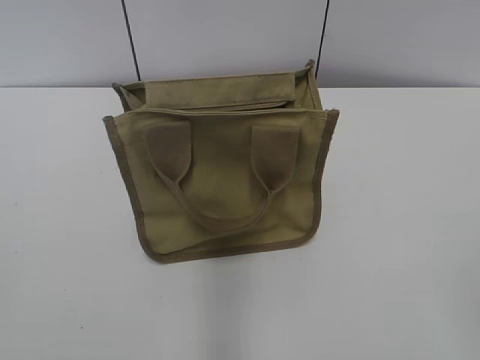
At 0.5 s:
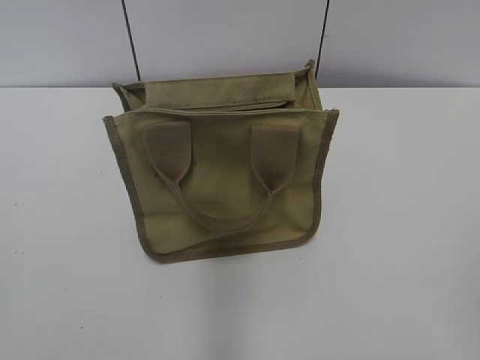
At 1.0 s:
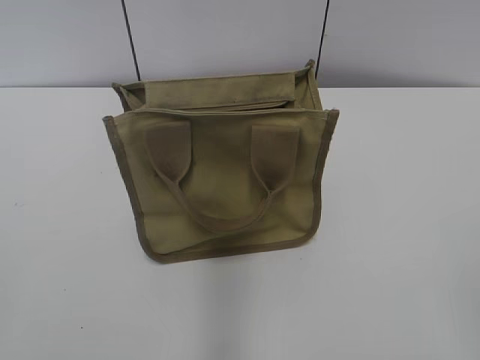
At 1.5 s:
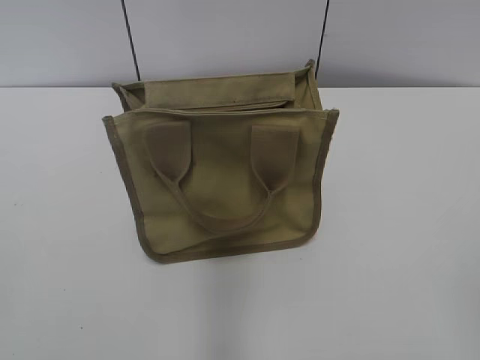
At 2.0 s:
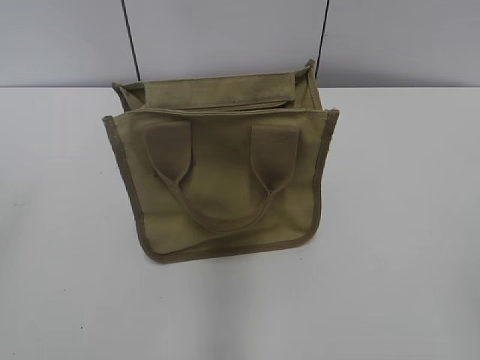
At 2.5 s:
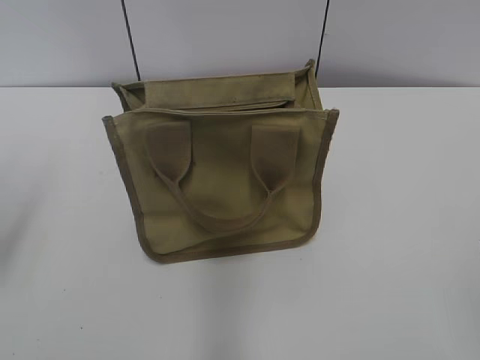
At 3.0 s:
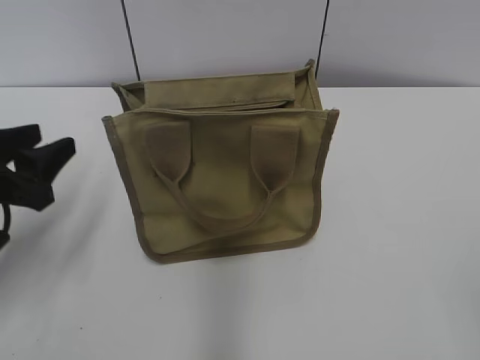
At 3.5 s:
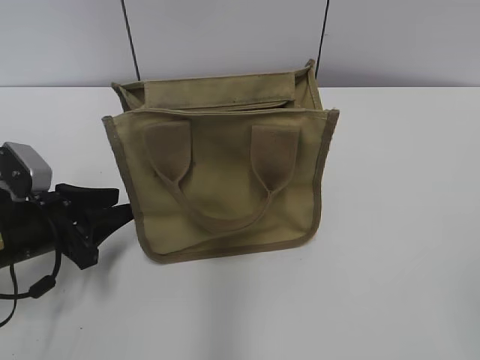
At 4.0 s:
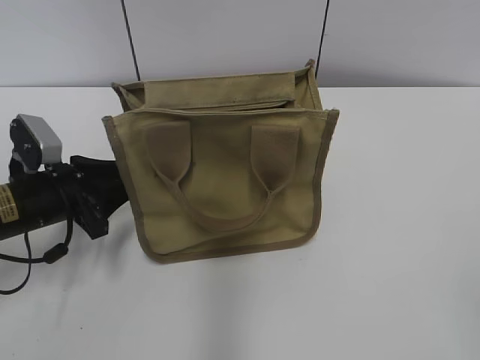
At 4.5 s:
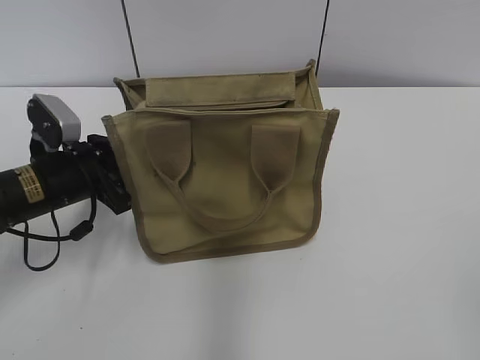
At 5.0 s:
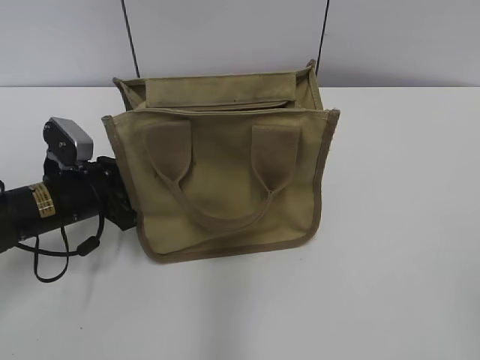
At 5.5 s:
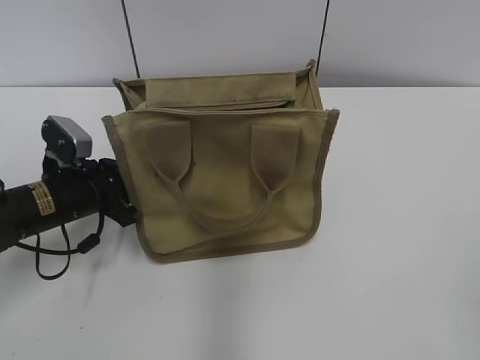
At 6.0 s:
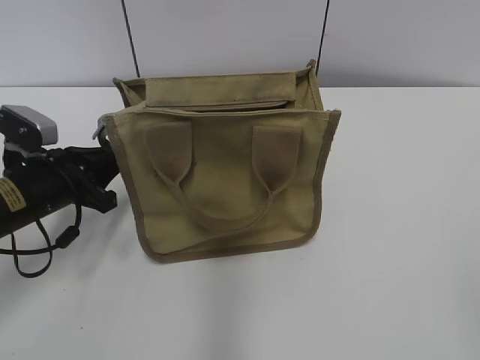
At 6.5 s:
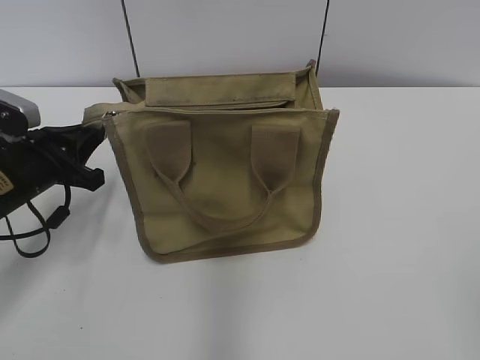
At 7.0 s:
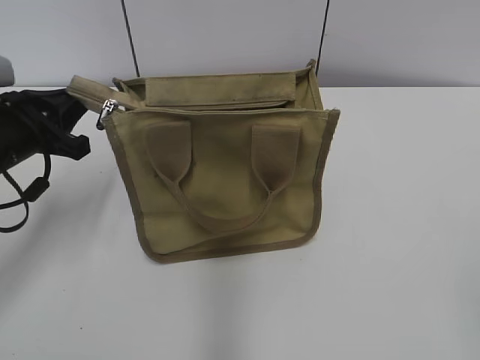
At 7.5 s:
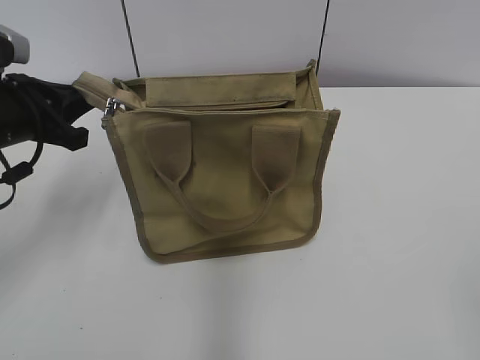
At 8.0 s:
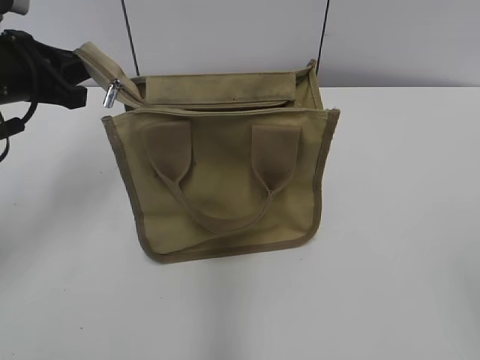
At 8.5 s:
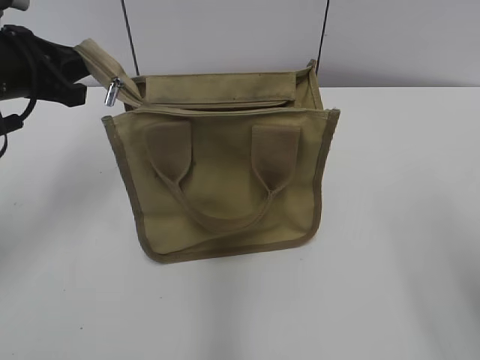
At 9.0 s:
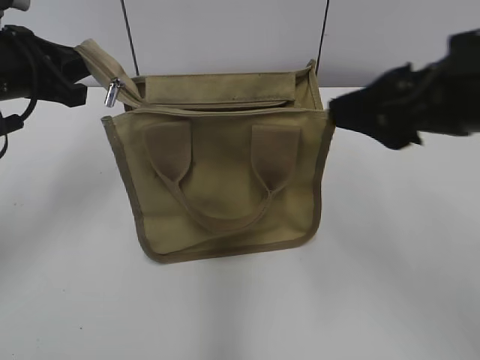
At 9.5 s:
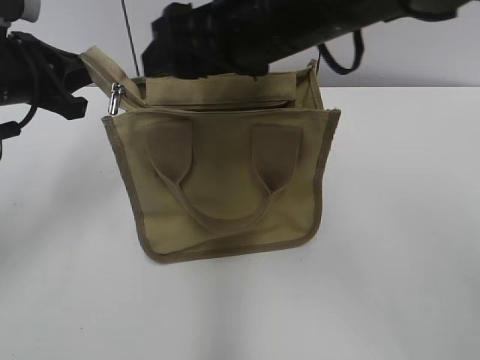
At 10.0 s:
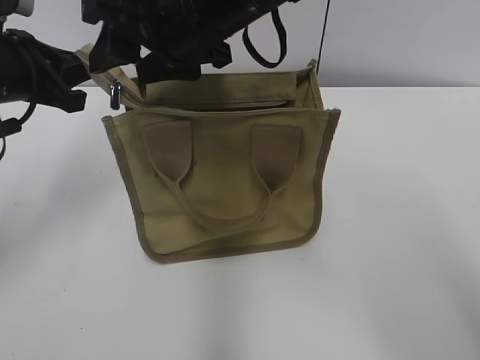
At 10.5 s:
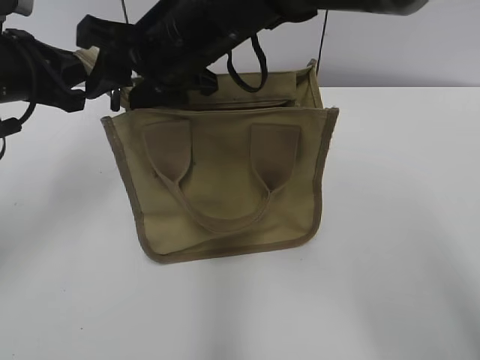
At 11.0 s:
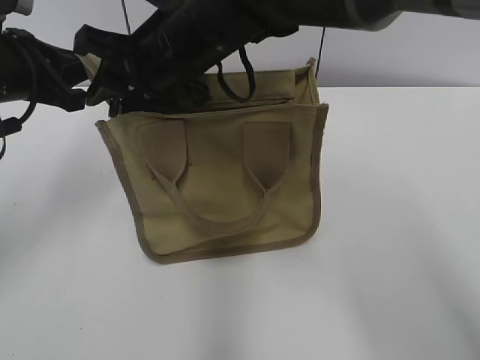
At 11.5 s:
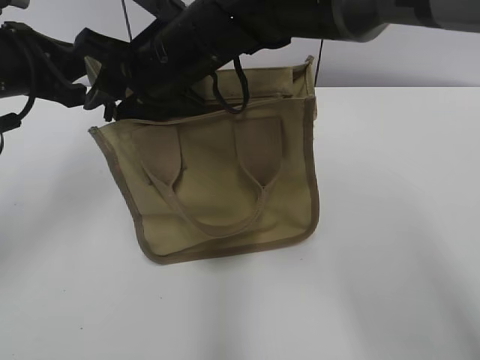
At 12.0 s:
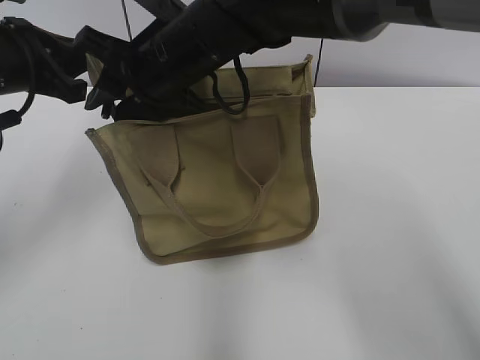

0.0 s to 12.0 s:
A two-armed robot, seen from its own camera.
2.0 to 4.0 s: The left gripper is displaced forward and downward by approximately 30 cm, and closes.
4.0 to 6.0 s: The left gripper closes up.
6.0 to 8.0 s: The left gripper moves upward, approximately 15 cm.
8.0 to 10.0 s: The right gripper travels forward and to the left by about 40 cm.
10.0 to 12.0 s: The right gripper travels downward by some 5 cm.

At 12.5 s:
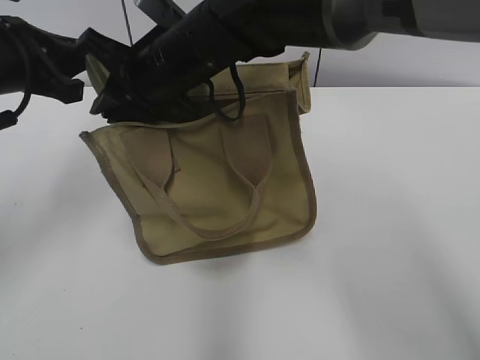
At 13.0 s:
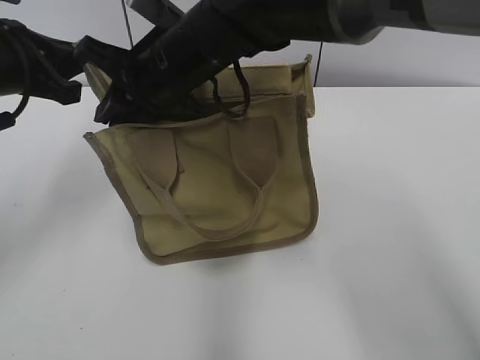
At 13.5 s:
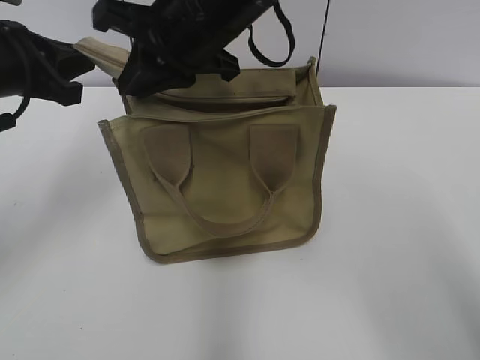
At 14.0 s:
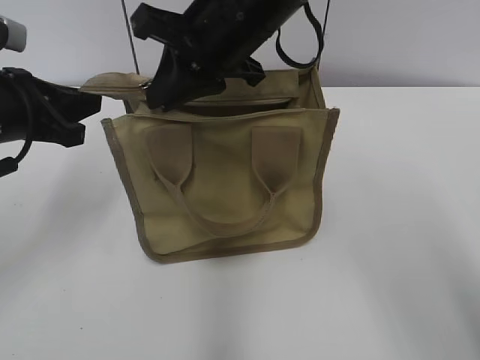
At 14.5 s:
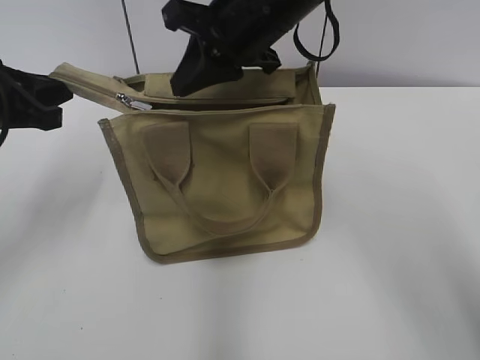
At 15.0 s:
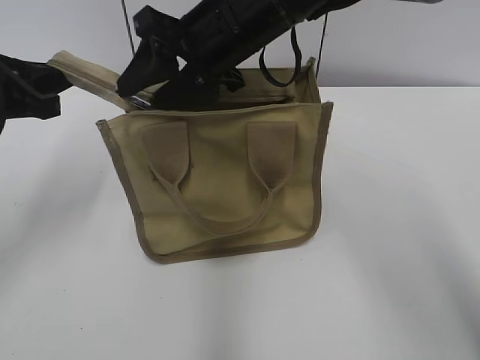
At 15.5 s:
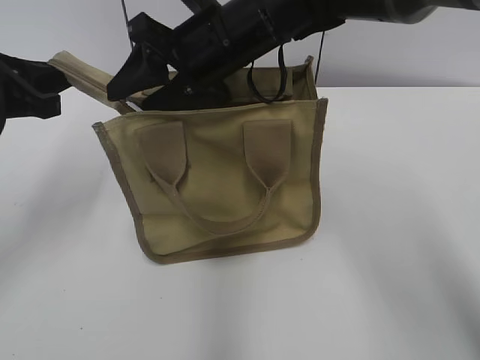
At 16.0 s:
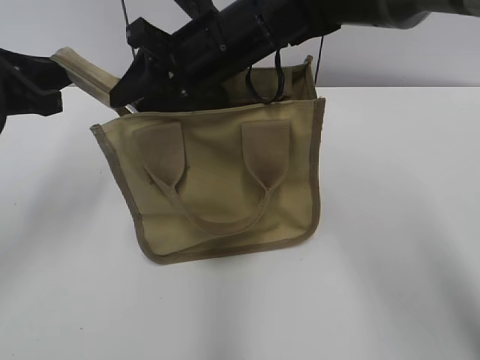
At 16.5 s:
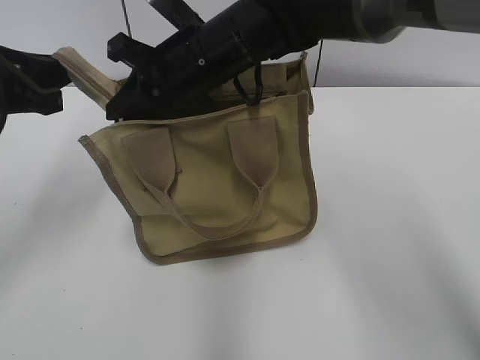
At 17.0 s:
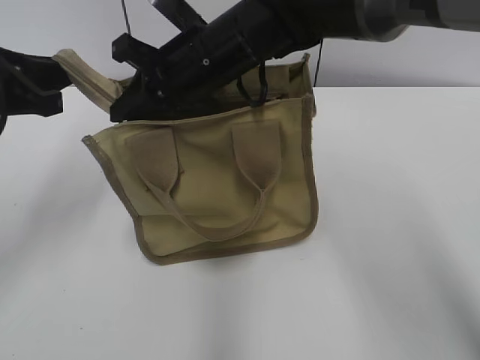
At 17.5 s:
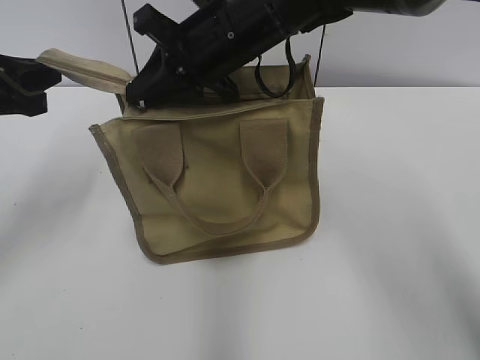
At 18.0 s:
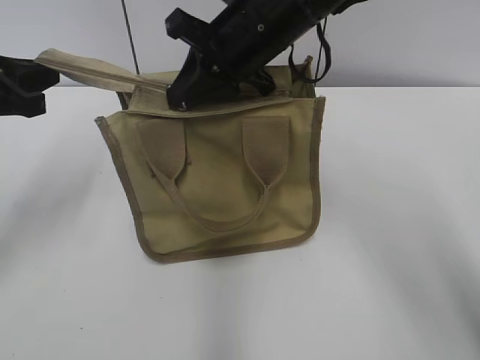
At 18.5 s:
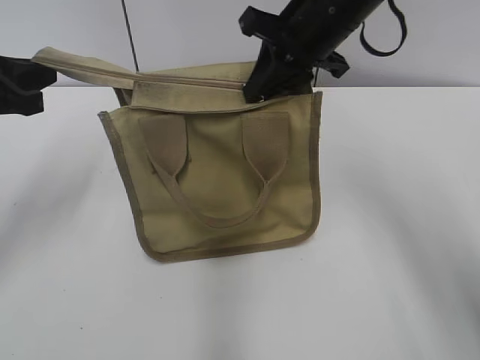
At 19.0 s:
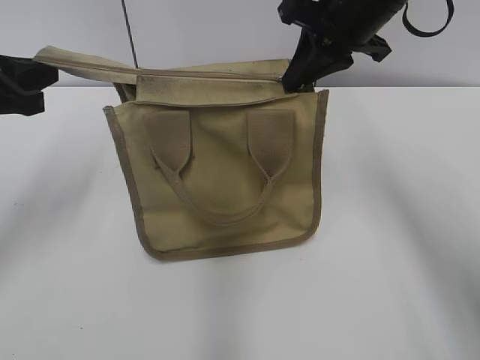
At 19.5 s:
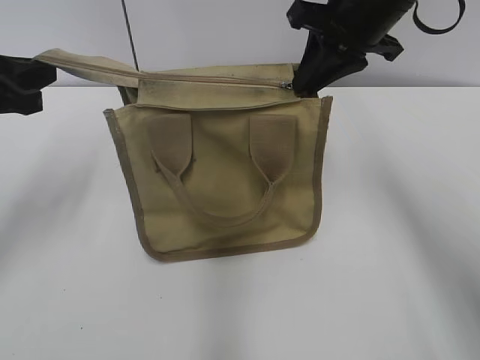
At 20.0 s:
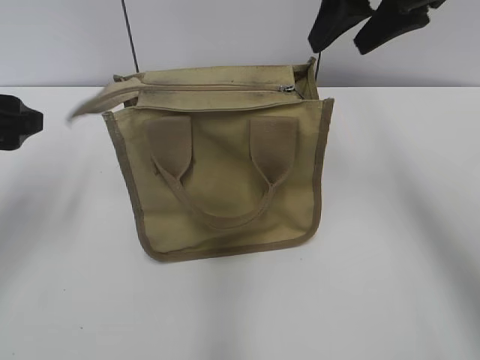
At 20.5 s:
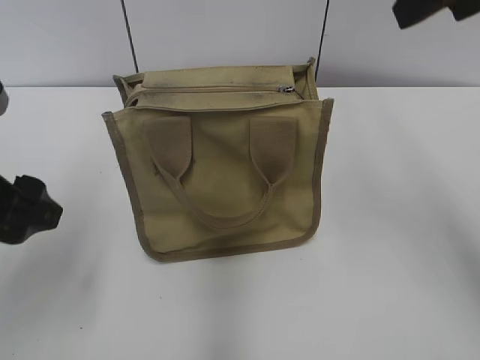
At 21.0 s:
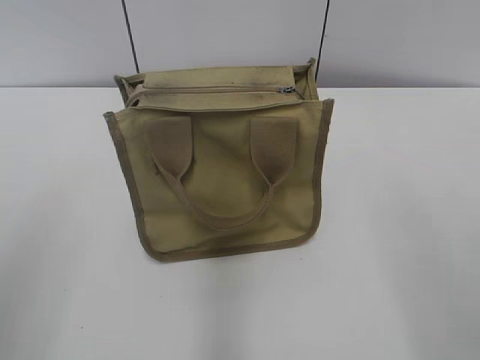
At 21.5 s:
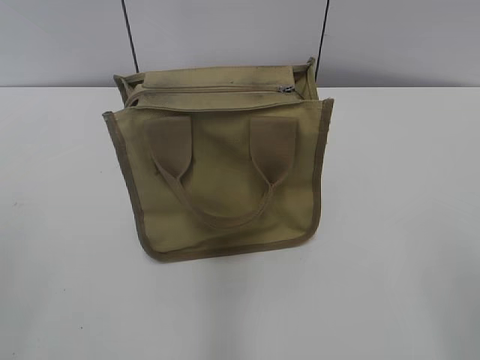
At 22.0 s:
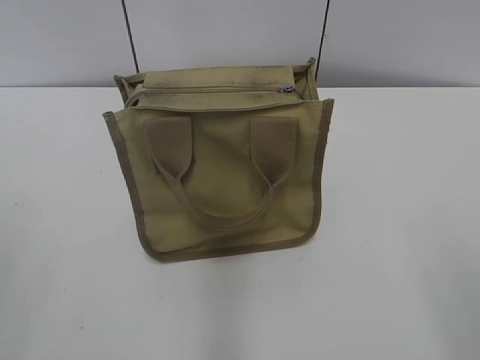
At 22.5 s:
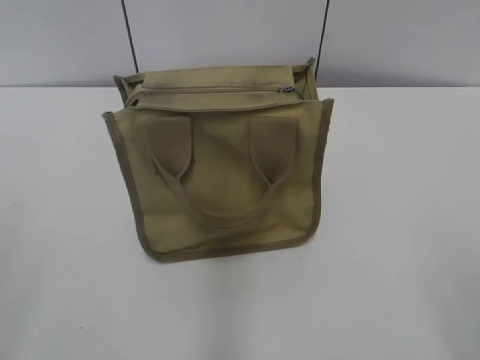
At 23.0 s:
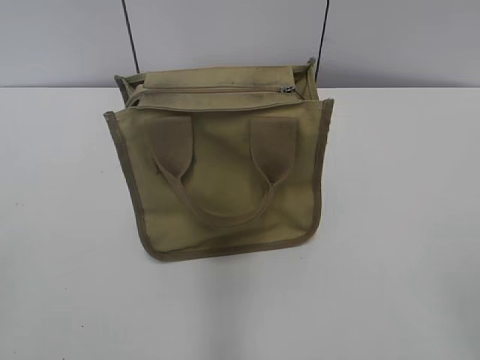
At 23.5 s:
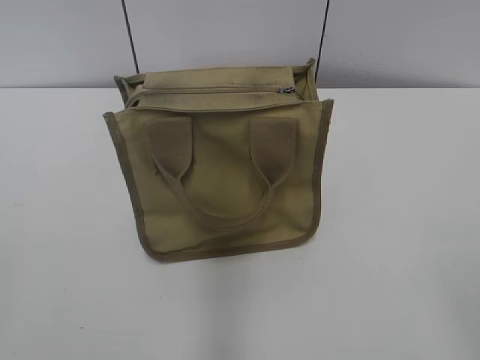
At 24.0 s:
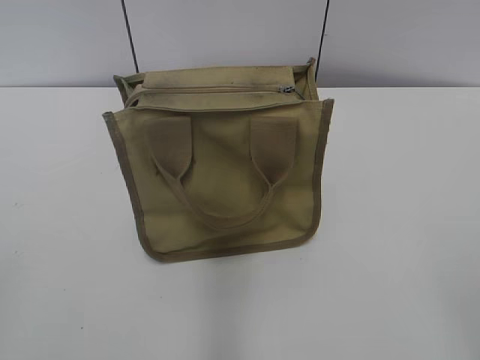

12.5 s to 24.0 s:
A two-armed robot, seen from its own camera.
Step, 12.5 to 19.5 s: Zip up the bag with your right hand.
12.5 to 14.5 s: The right gripper shifts roughly 10 cm to the right and upward.
14.5 to 16.5 s: The right gripper heads downward and to the left, covering some 10 cm, and opens, then closes again.
16.5 to 18.5 s: The right gripper shifts about 10 cm to the right.
18.5 to 20.0 s: The right gripper travels upward and to the right by about 10 cm, and opens. The left gripper opens.
20.0 to 22.0 s: The two grippers go roughly 30 cm backward.

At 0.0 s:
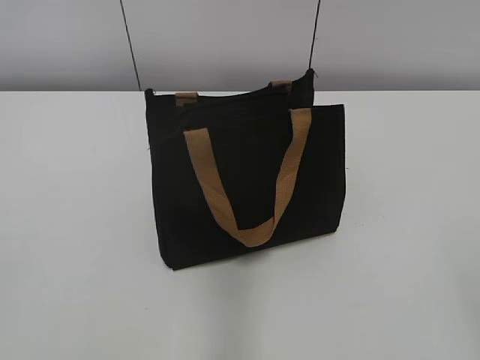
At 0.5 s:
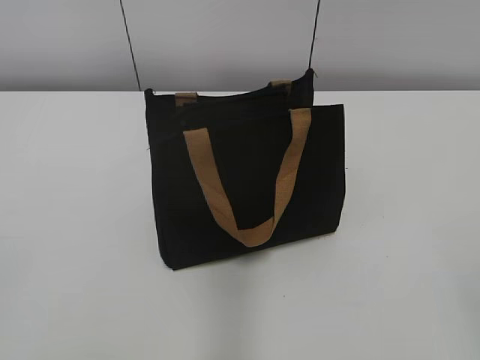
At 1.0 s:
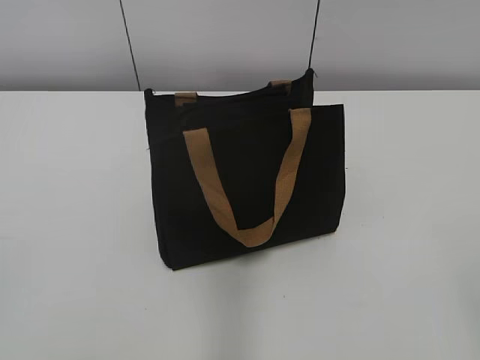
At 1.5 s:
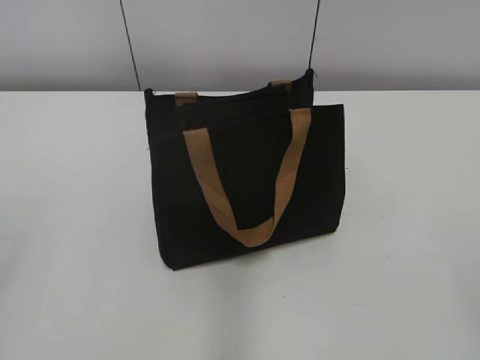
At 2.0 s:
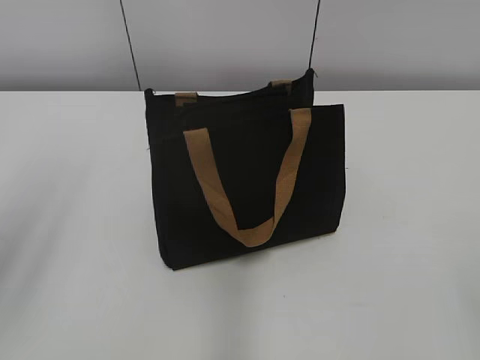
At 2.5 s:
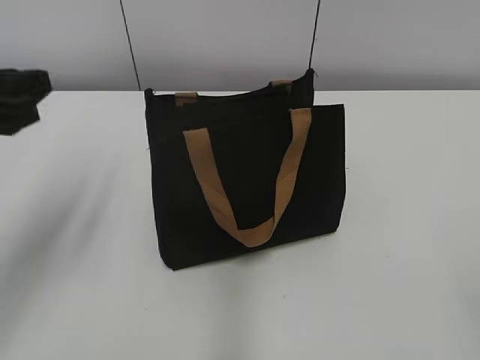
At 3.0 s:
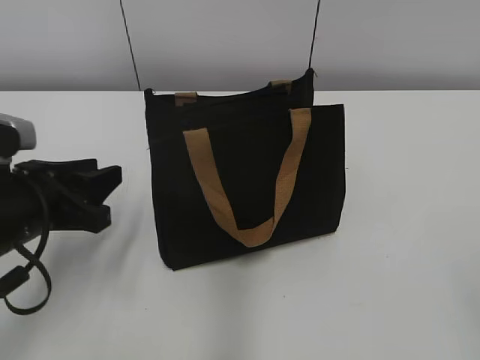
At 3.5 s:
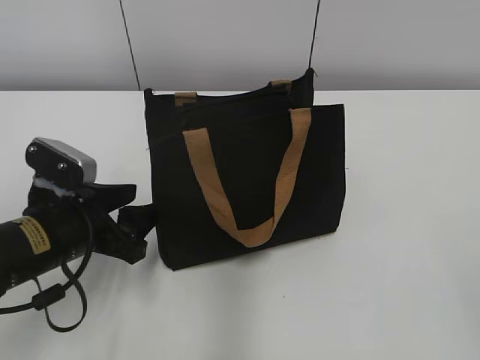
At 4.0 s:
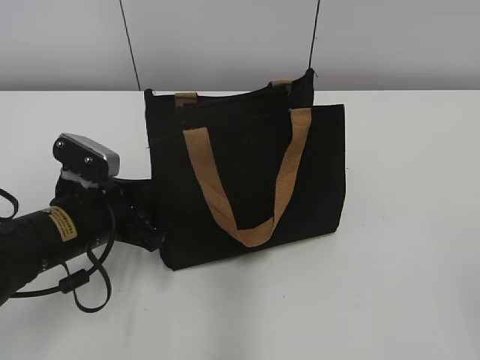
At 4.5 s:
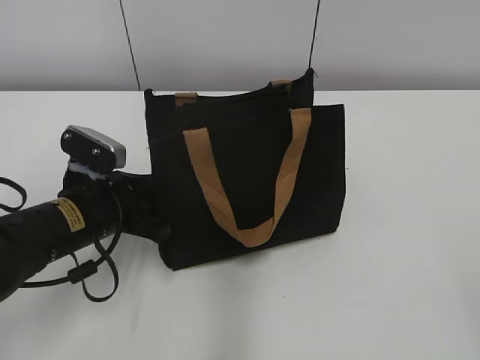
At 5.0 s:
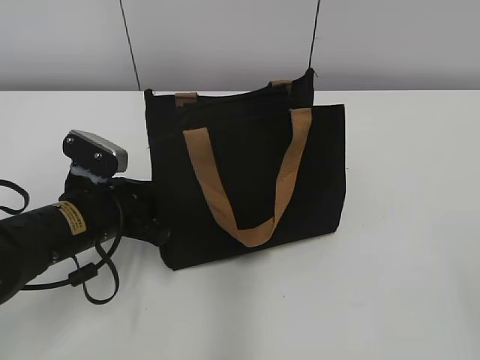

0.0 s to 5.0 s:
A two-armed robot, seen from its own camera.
2.5 to 5.0 s: The left gripper travels downward and to the right by approximately 20 cm, and closes.
